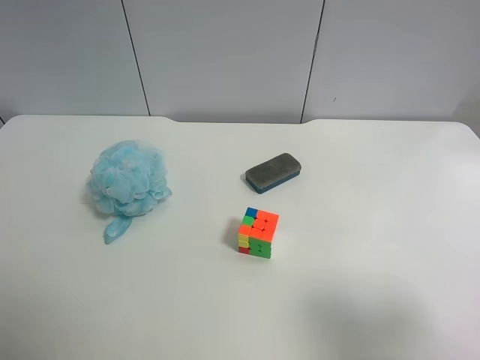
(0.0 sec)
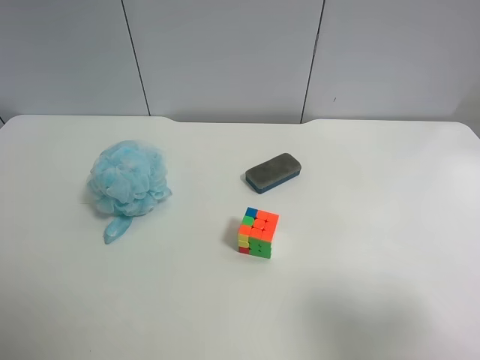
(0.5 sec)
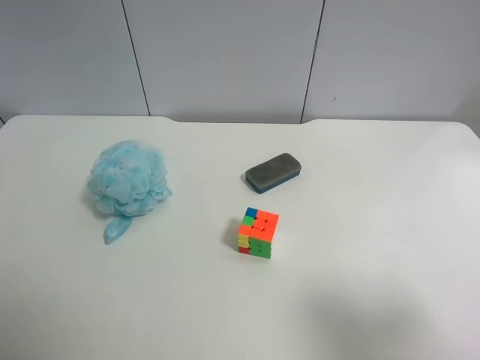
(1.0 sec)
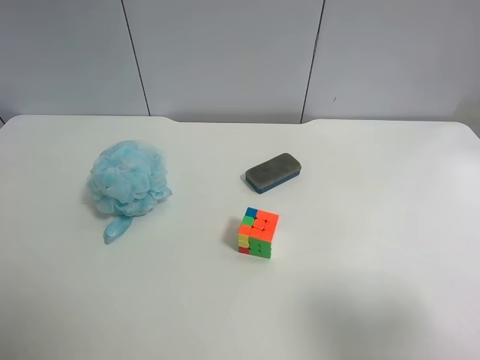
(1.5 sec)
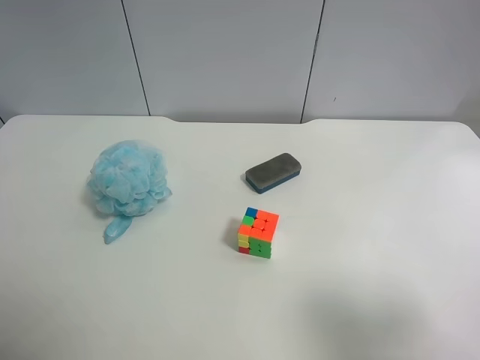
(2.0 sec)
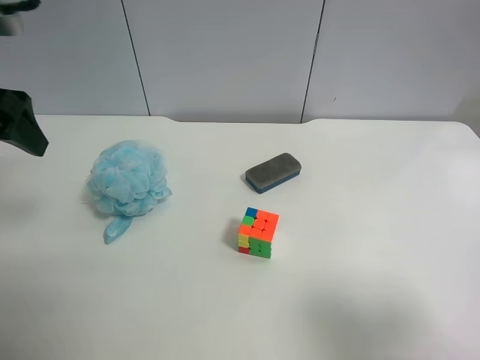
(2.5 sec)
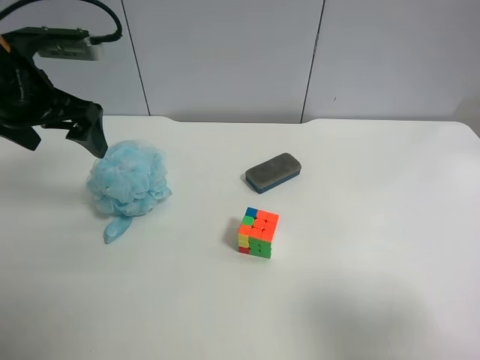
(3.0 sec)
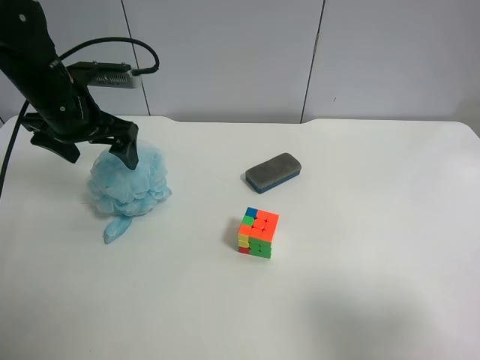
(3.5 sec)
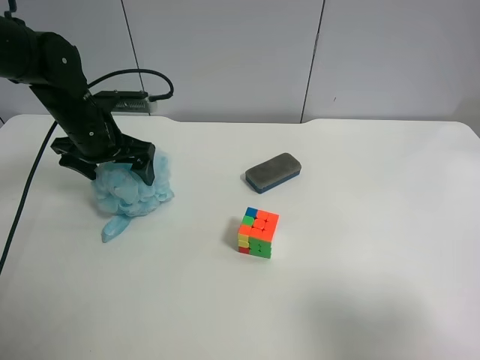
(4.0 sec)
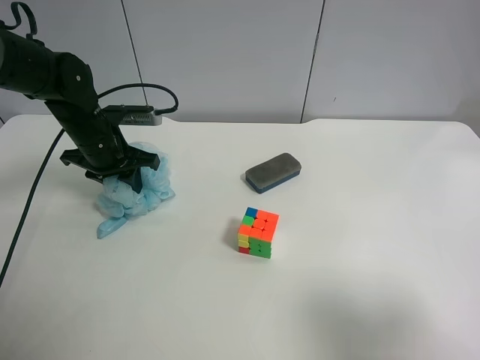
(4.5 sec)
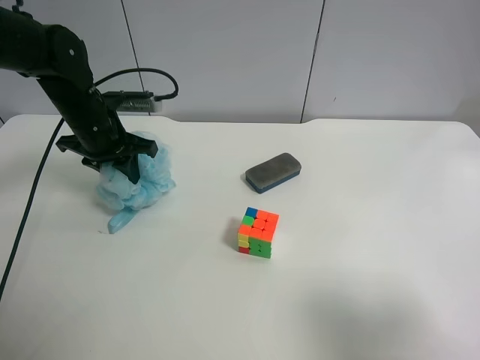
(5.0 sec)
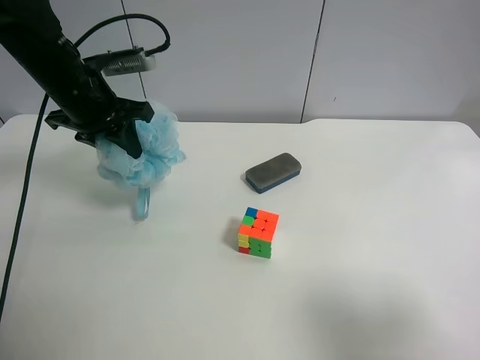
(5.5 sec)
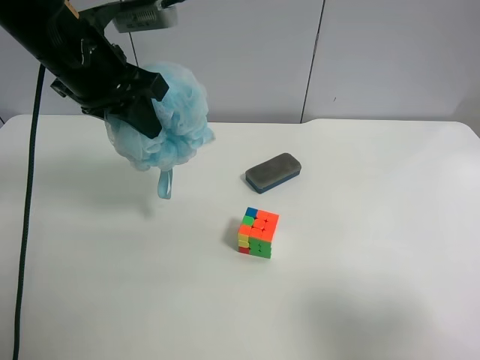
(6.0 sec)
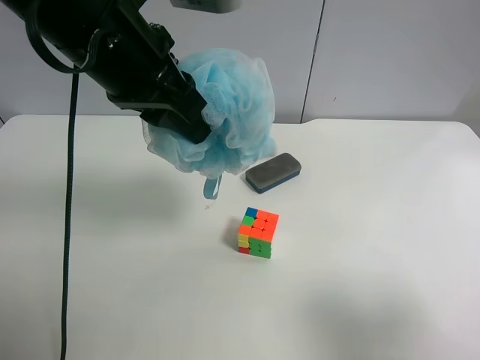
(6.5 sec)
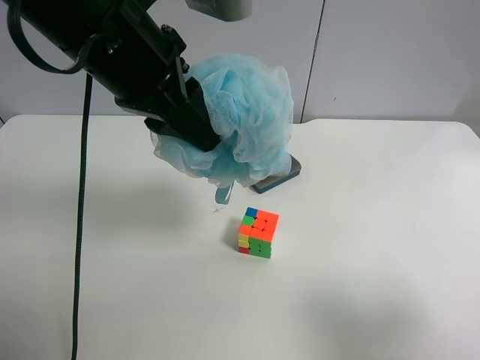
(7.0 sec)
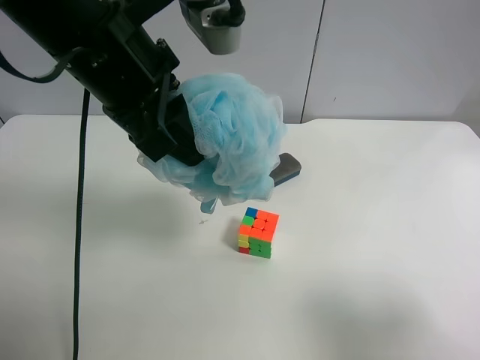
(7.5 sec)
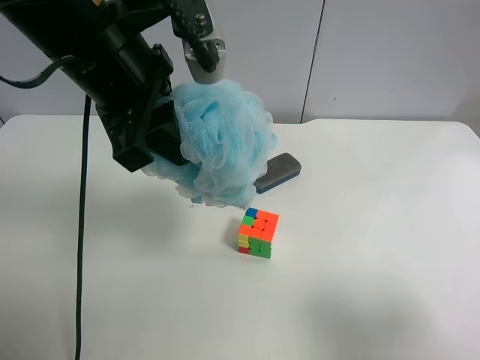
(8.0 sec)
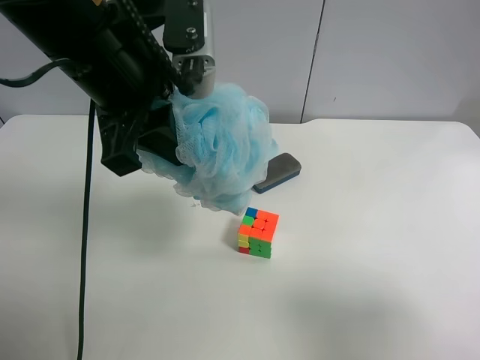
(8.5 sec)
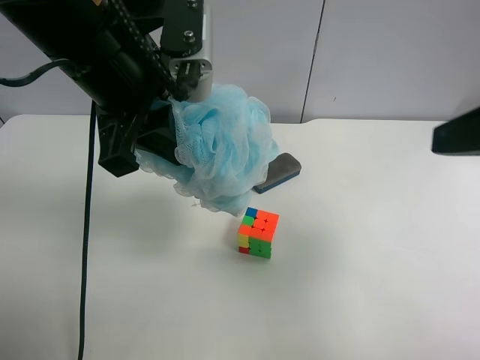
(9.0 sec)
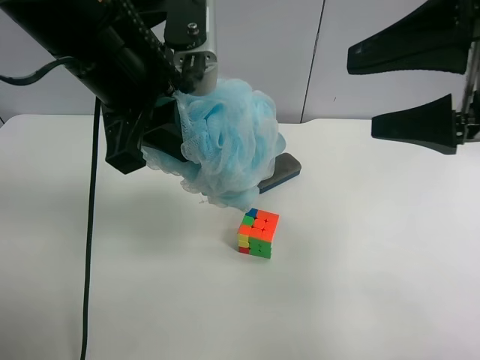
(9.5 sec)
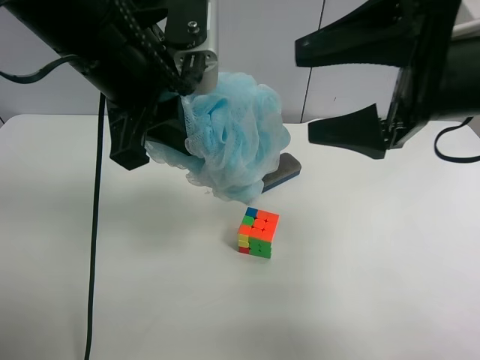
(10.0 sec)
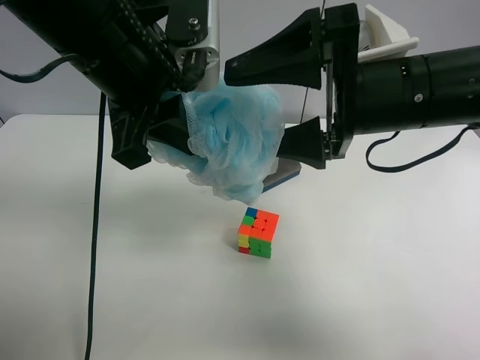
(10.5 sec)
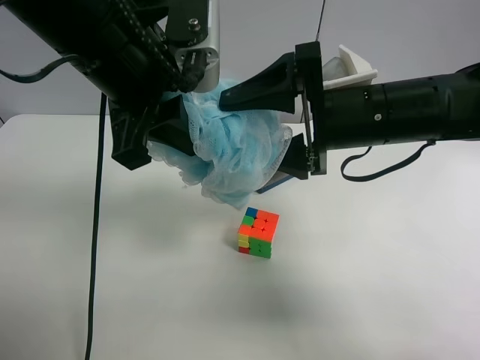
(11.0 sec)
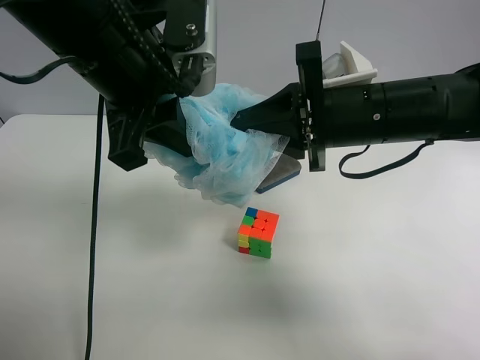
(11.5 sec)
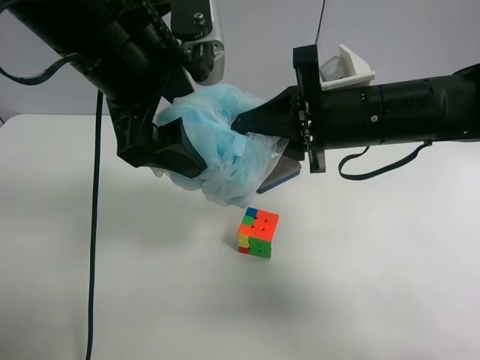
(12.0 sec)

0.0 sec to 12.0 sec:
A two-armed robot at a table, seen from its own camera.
Task of the whole recording: use the left gripper to pick up the item and transfer it from the left gripper to the right gripper.
2.0 sec to 4.0 sec: The left gripper goes approximately 30 cm forward and downward.
4.0 sec to 6.0 sec: The left gripper moves upward, backward and to the right, approximately 15 cm, and closes up.
6.0 sec to 8.0 sec: The left gripper shifts about 10 cm backward and to the right.
8.0 sec to 10.0 sec: The right gripper heads forward and to the left, covering approximately 25 cm.
10.0 sec to 12.0 sec: The right gripper is displaced downward and to the left by some 10 cm, and closes up, while the left gripper opens its fingers.

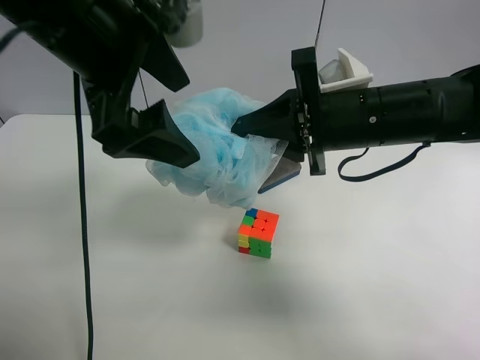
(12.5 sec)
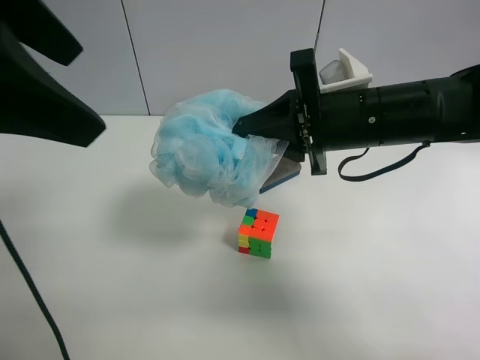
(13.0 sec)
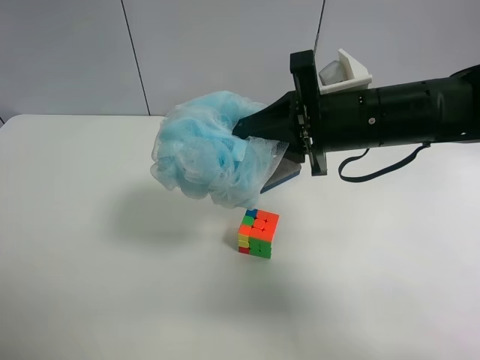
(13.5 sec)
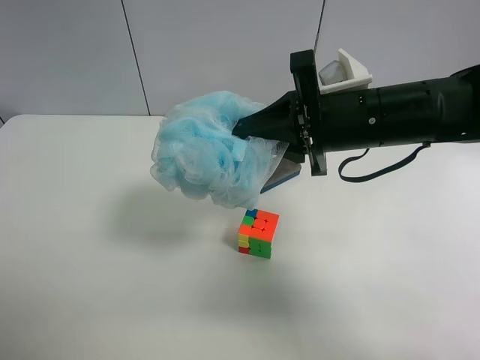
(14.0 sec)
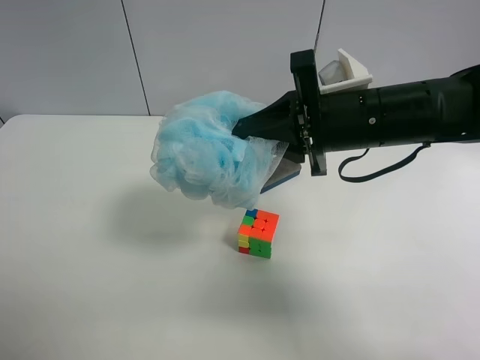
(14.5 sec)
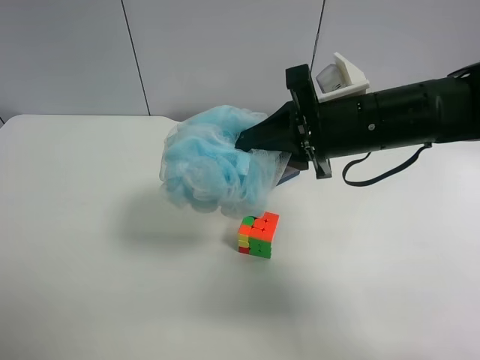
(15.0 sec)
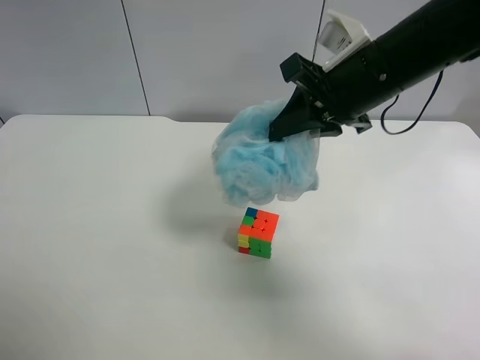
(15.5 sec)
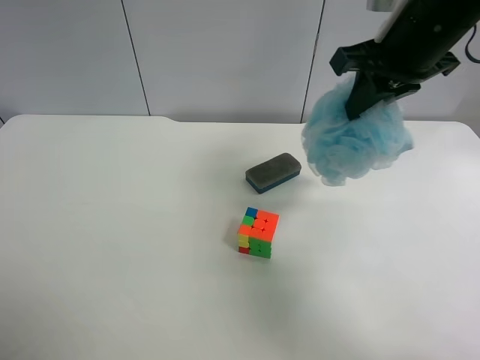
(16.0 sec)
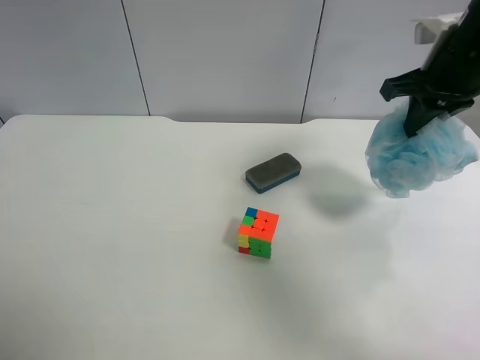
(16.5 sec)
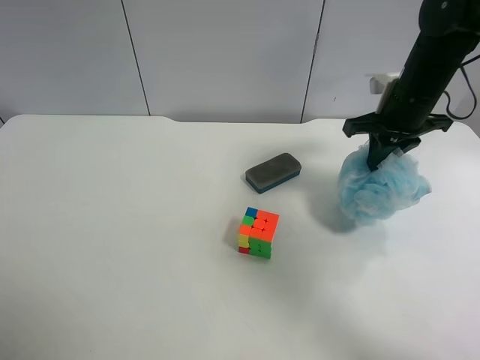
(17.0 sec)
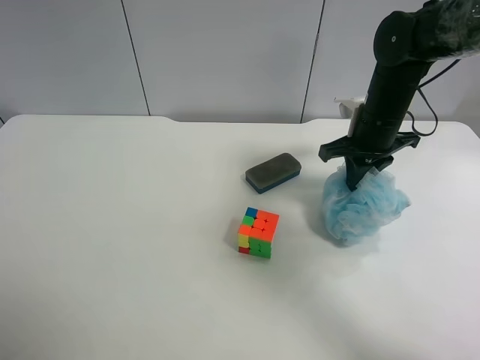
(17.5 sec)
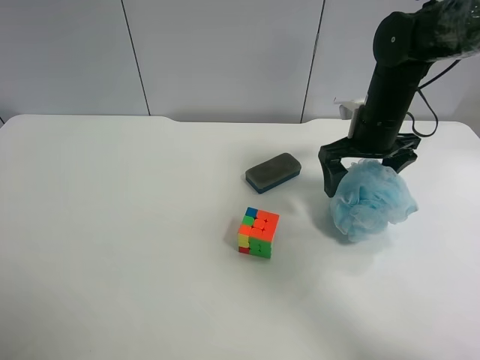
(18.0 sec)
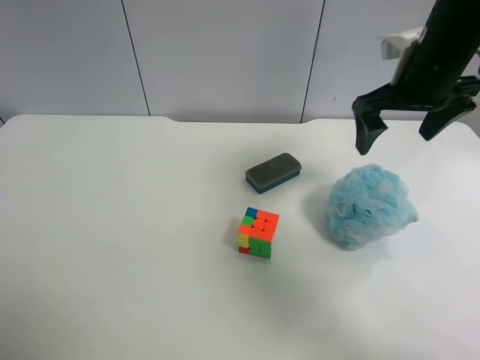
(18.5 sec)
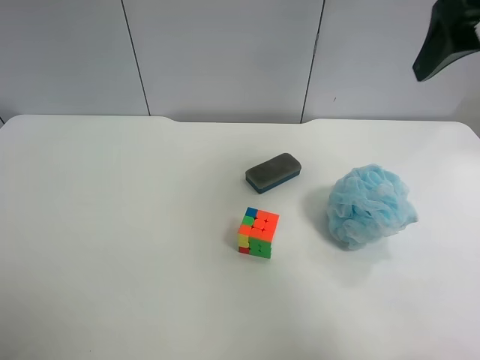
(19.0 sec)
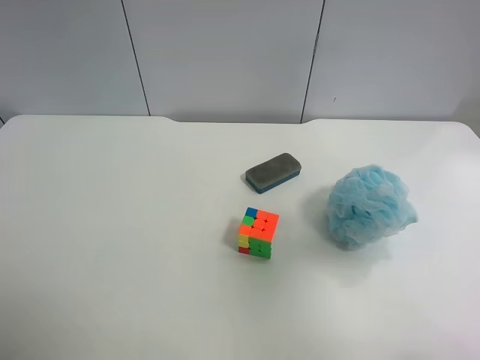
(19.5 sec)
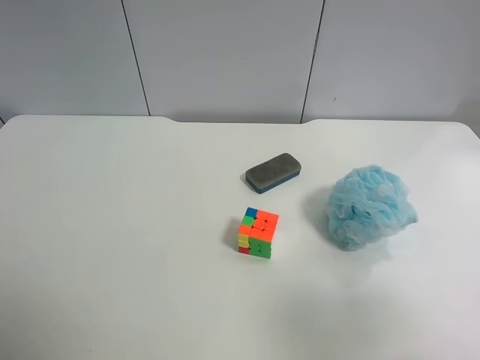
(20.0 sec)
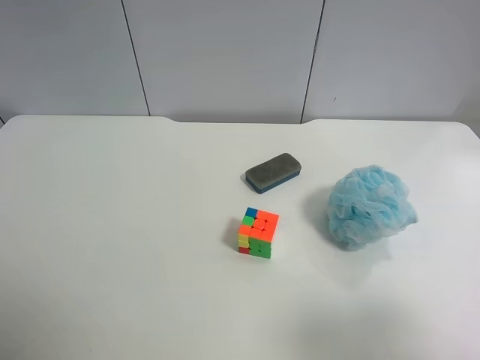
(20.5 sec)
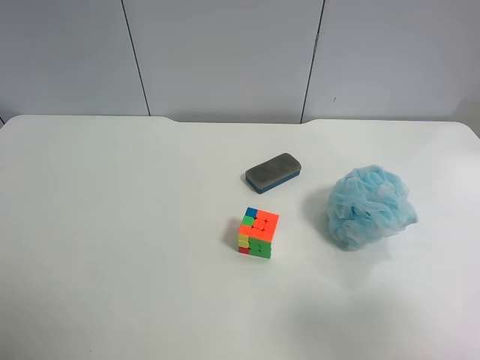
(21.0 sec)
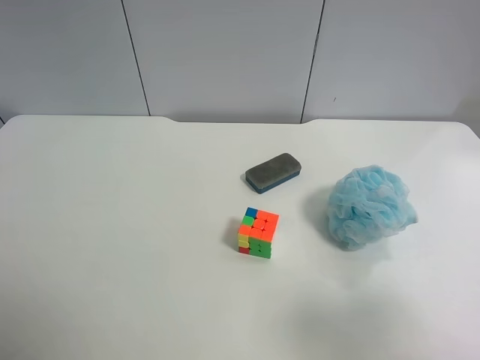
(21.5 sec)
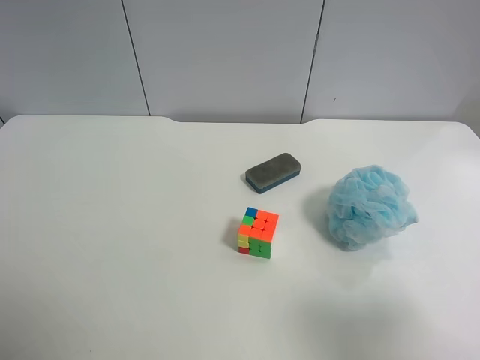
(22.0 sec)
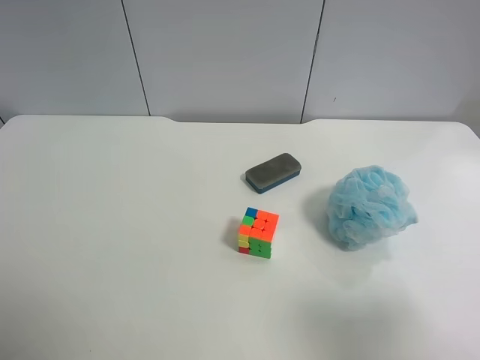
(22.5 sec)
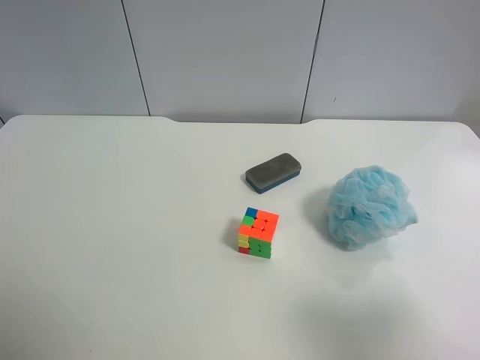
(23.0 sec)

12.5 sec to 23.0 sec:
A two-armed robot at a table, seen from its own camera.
Task of the whole recording: use the left gripper to pick up the item and transfer it from the left gripper to the right gripper.
12.5 sec to 14.5 sec: The left gripper goes about 30 cm backward and to the left.
14.5 sec to 16.5 sec: The right gripper goes roughly 15 cm to the right and forward.
16.5 sec to 19.0 sec: The right gripper is displaced upward and backward by roughly 15 cm, and opens up.
19.0 sec to 21.0 sec: The right gripper shifts about 25 cm backward and downward.
